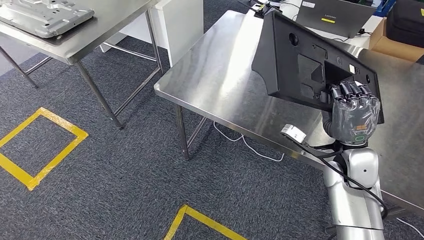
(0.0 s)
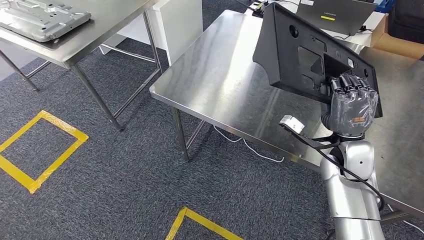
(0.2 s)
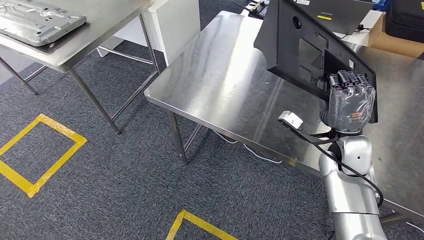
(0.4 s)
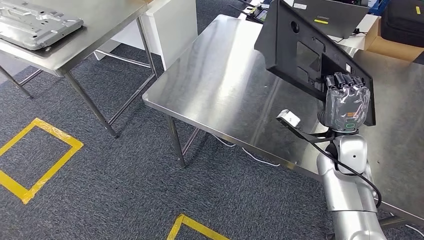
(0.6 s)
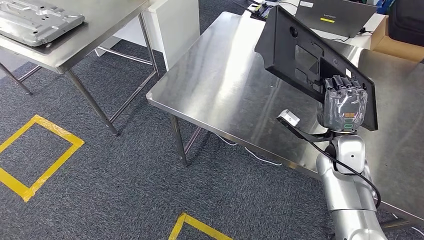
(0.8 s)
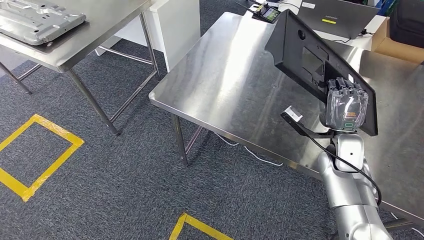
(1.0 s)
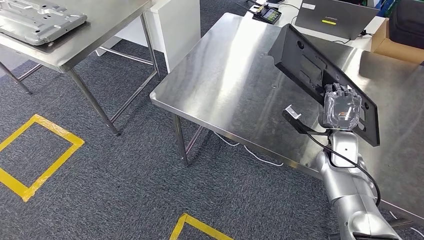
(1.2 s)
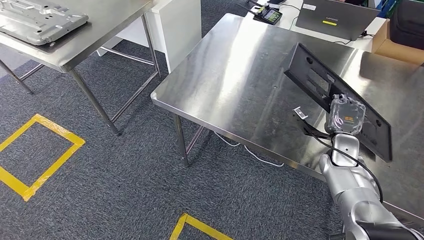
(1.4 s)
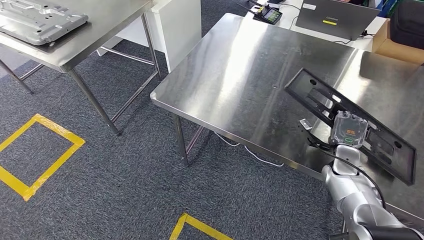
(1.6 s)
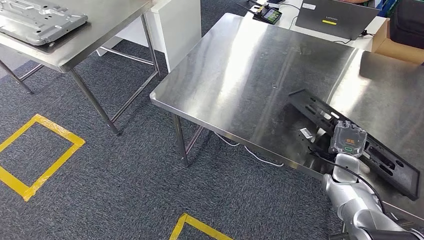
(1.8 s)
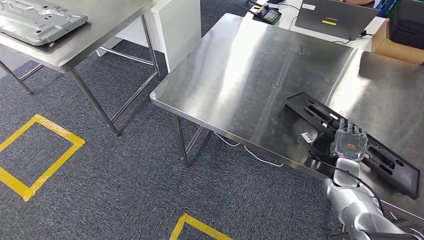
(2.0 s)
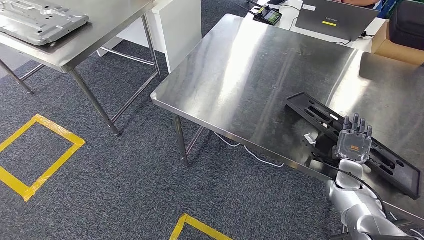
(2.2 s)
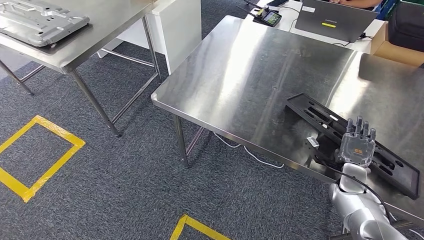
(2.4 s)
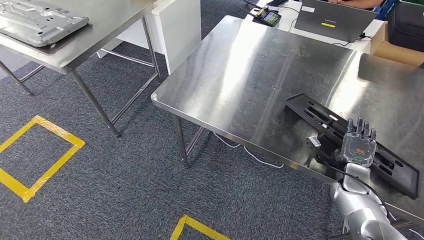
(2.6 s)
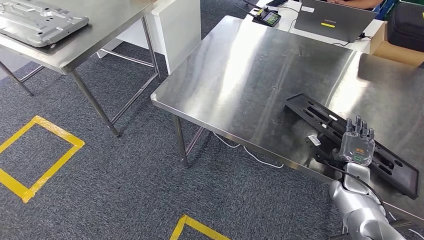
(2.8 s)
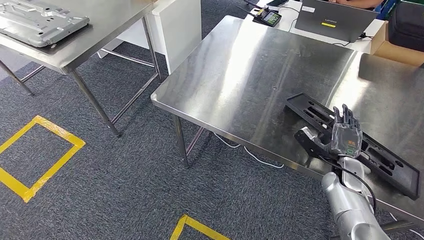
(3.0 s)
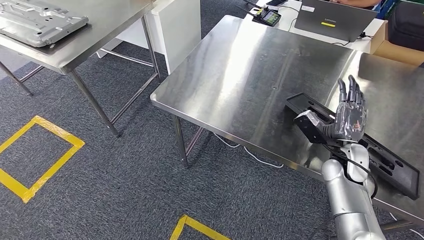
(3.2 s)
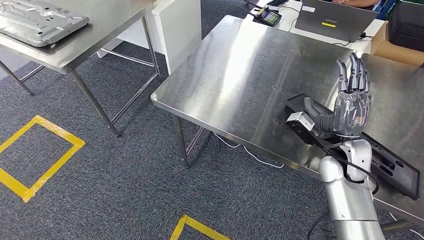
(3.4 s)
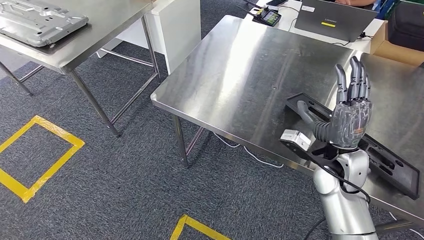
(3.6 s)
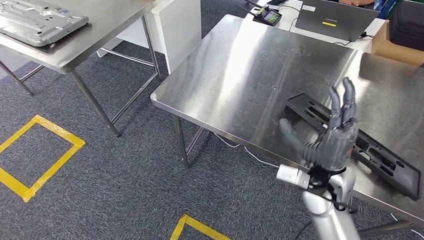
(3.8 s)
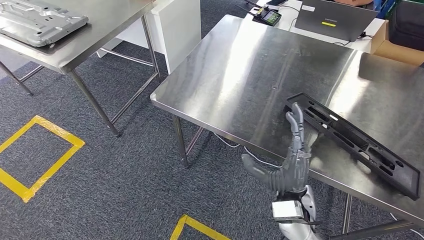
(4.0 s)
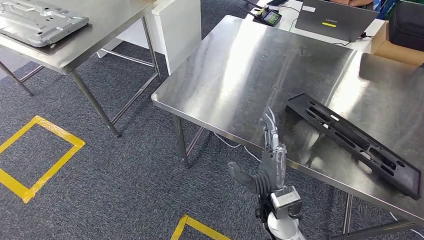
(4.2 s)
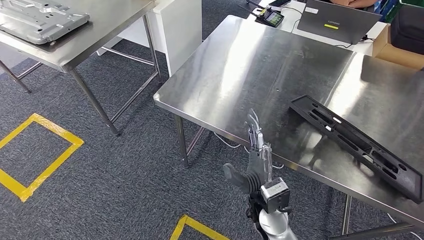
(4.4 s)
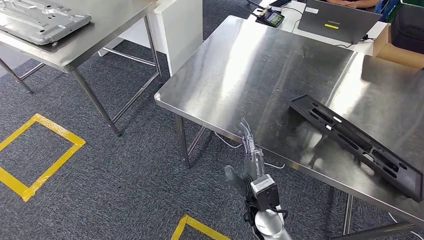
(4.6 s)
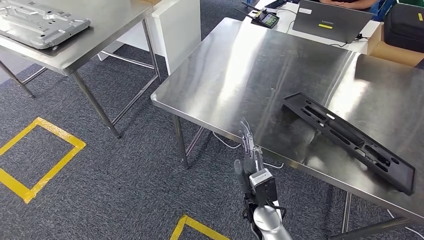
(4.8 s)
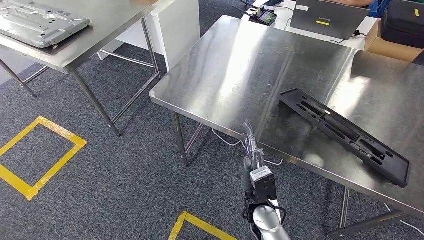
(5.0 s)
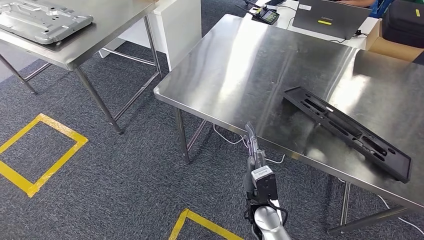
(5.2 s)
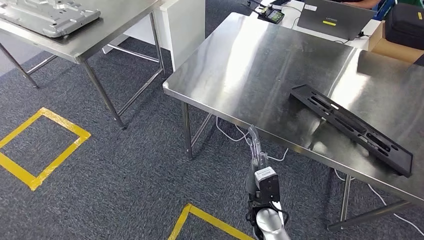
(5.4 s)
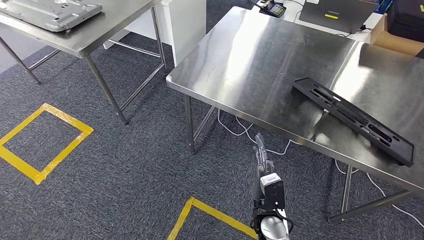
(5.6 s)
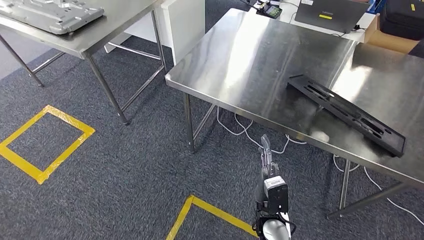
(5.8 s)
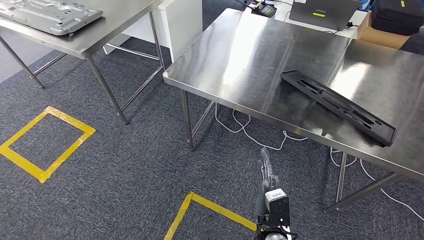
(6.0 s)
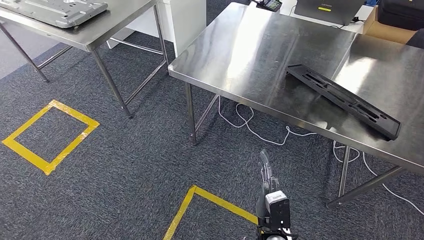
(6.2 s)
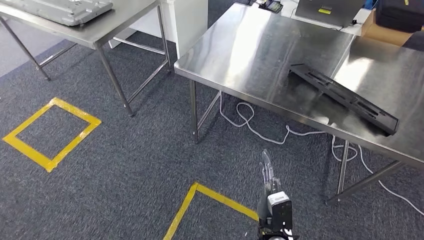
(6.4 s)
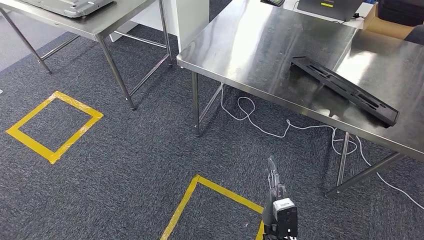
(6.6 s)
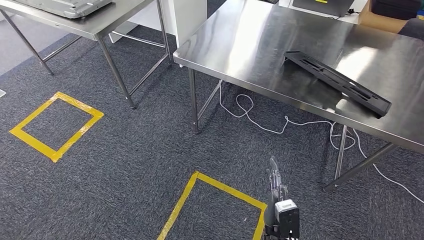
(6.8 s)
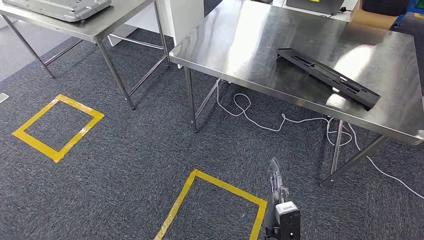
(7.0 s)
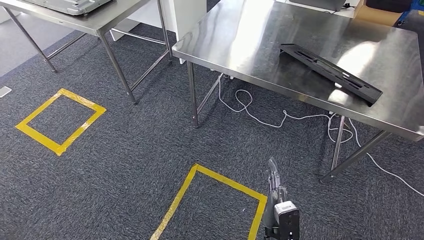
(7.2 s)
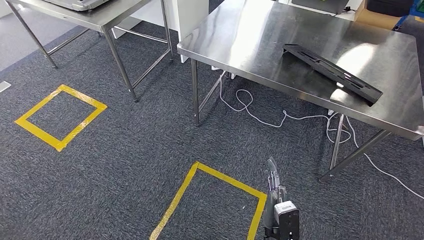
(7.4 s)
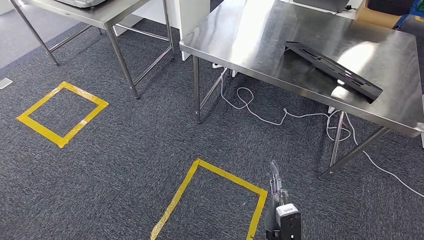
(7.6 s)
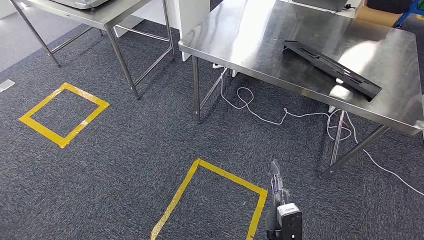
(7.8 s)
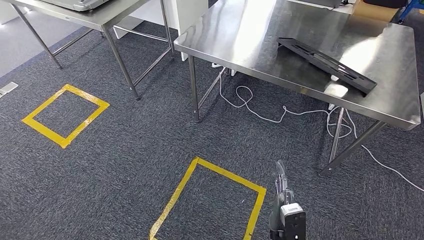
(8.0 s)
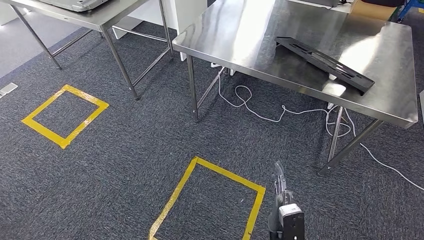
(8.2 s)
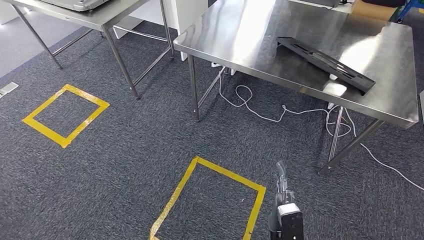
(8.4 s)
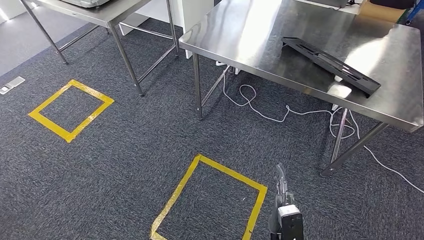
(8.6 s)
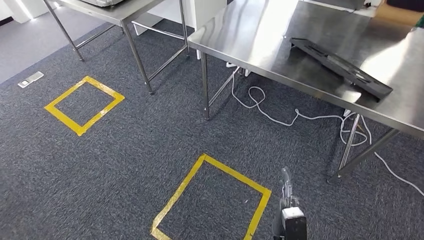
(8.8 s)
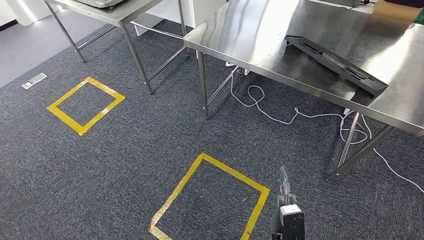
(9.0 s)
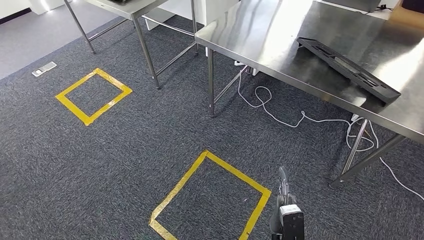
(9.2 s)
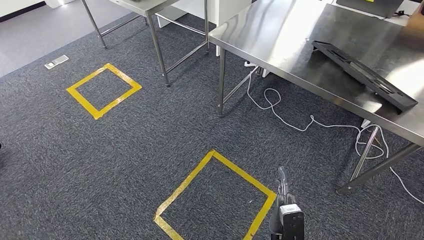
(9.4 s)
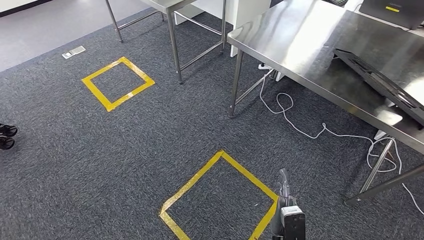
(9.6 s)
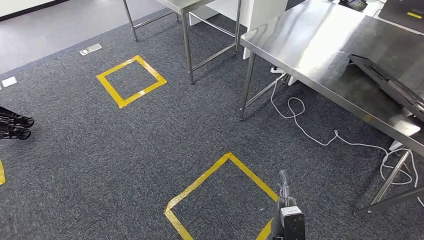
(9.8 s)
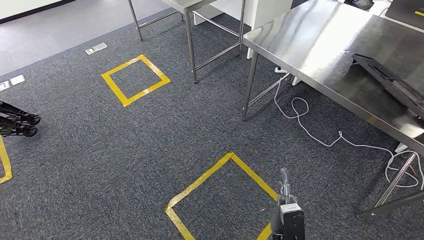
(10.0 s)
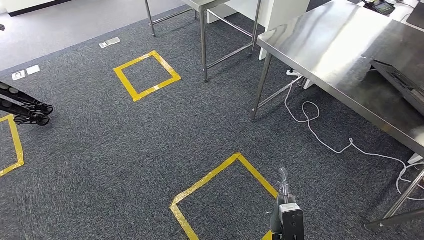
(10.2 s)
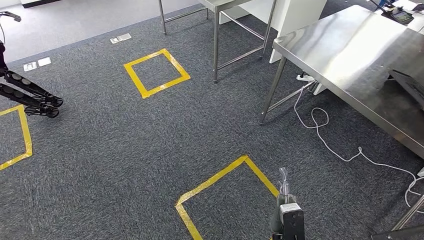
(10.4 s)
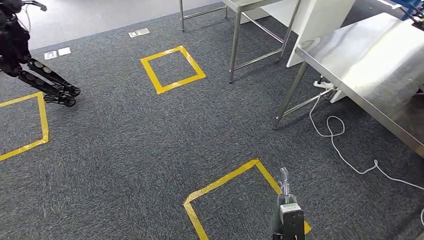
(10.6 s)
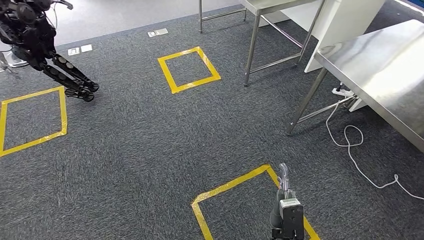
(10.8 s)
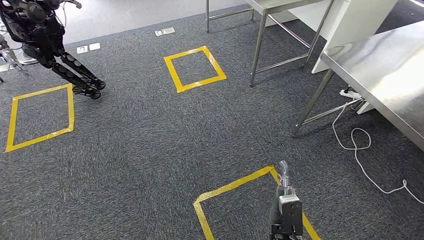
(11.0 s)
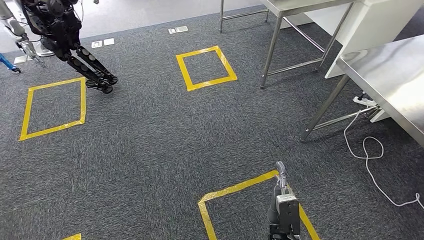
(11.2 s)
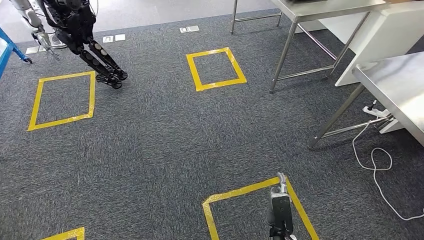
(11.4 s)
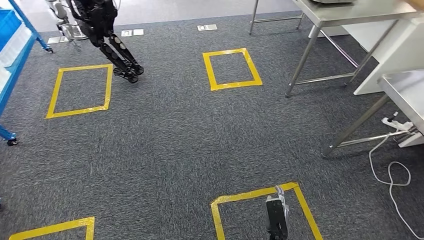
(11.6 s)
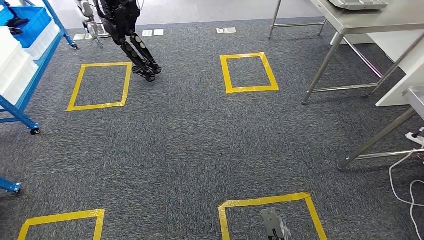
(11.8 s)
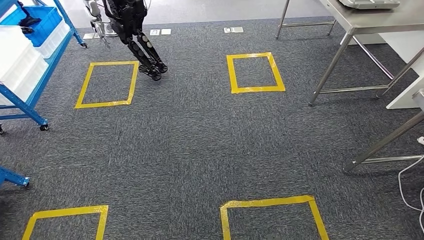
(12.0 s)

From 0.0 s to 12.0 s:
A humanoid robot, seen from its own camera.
Step, from 0.0 s to 11.6 s: Insert the large material into the corresponding slot on the workbench.
From 3.0 s to 4.4 s: The right hand travels to the left by about 25 cm.

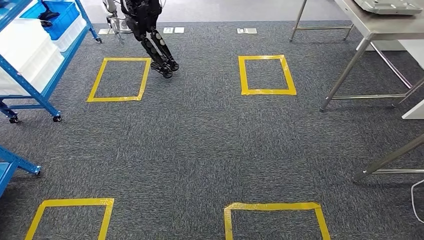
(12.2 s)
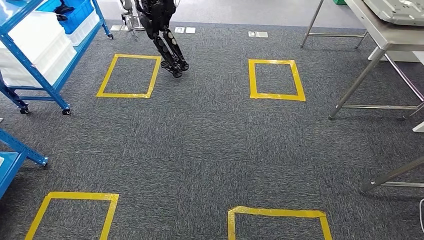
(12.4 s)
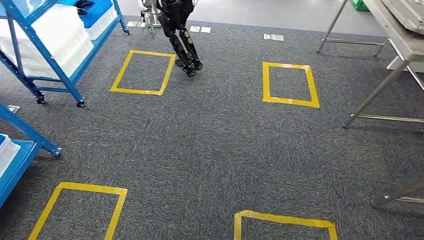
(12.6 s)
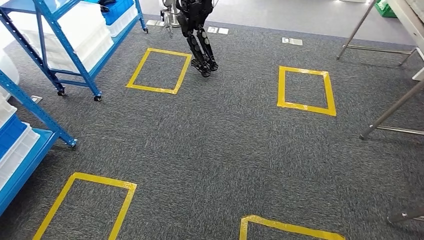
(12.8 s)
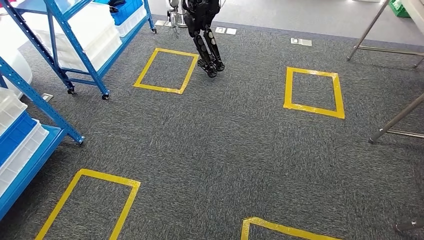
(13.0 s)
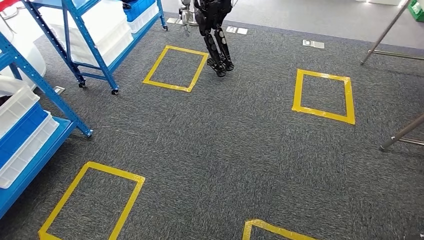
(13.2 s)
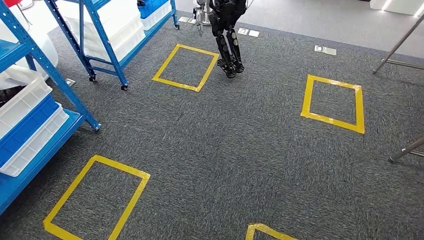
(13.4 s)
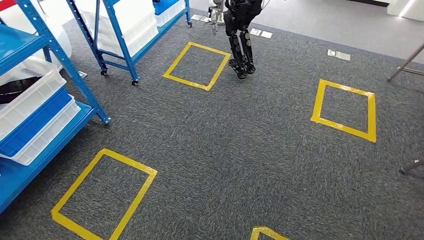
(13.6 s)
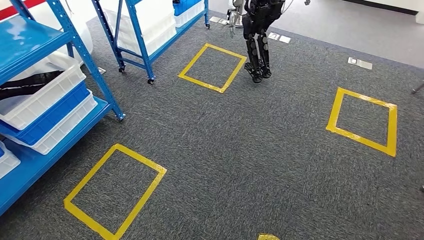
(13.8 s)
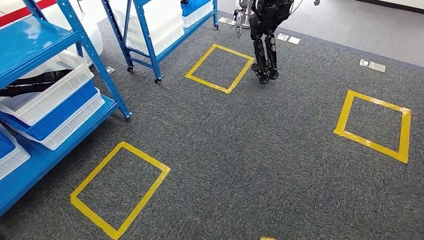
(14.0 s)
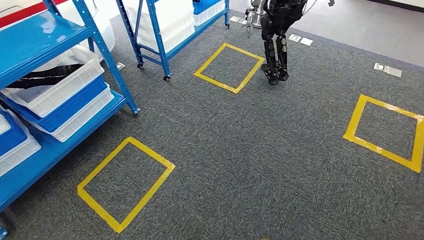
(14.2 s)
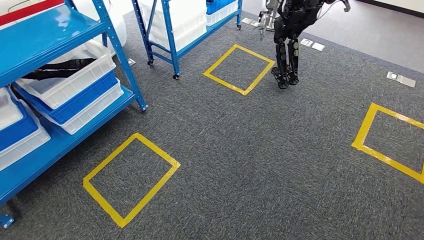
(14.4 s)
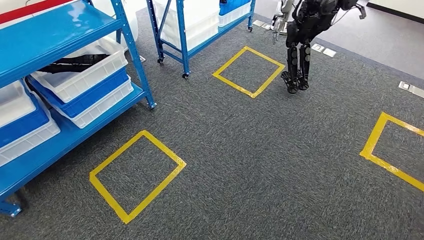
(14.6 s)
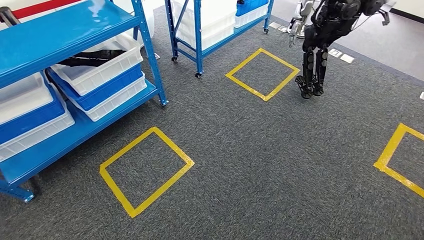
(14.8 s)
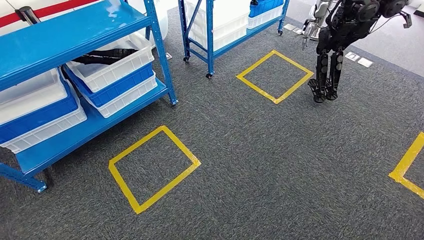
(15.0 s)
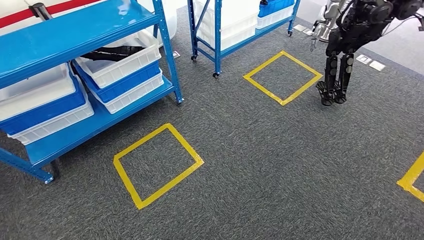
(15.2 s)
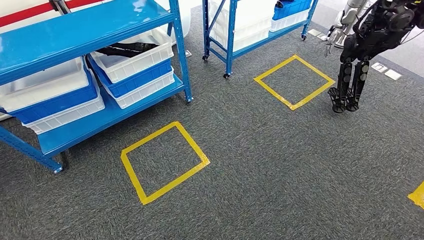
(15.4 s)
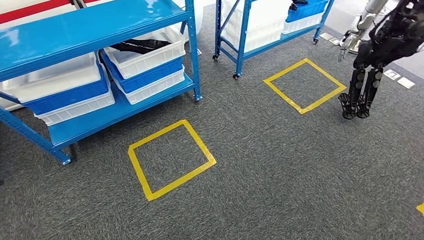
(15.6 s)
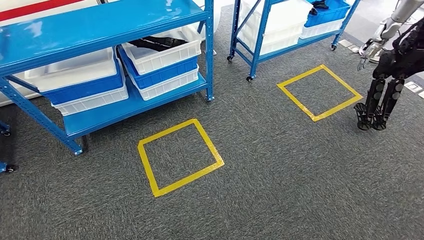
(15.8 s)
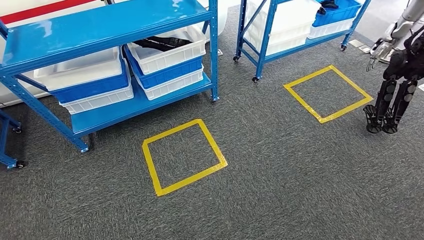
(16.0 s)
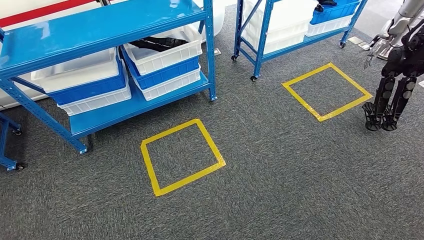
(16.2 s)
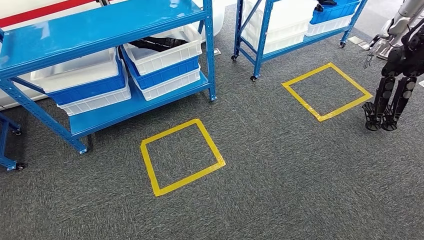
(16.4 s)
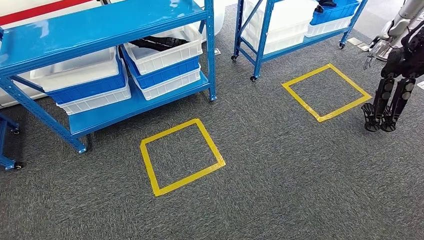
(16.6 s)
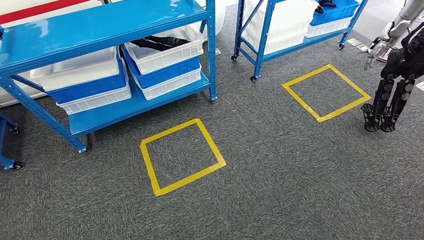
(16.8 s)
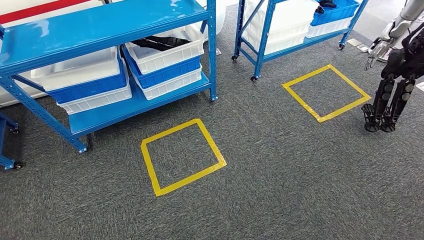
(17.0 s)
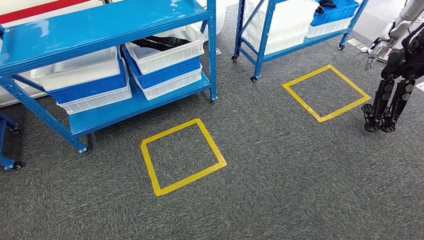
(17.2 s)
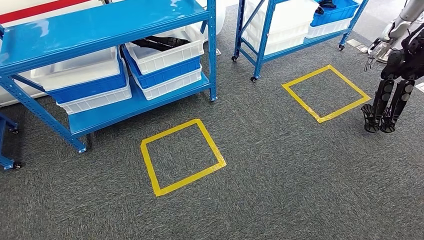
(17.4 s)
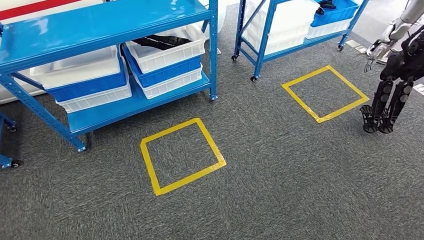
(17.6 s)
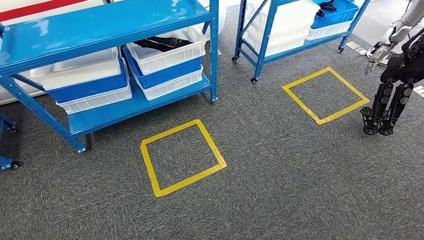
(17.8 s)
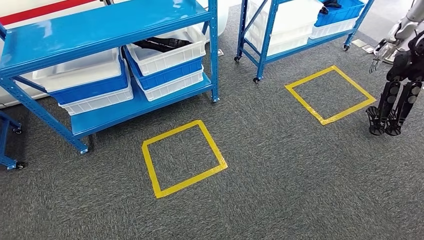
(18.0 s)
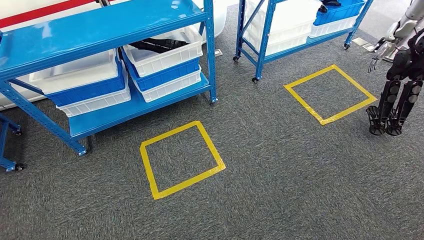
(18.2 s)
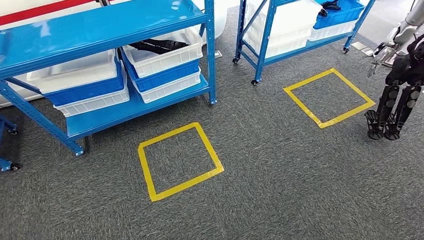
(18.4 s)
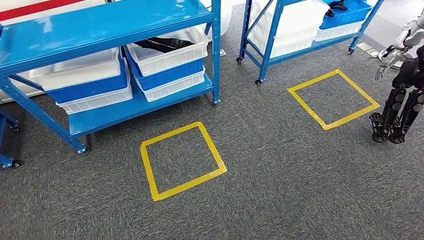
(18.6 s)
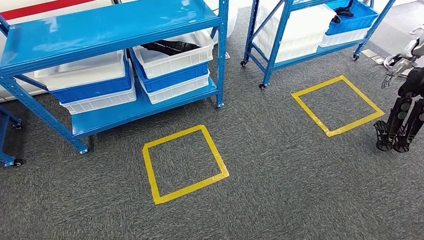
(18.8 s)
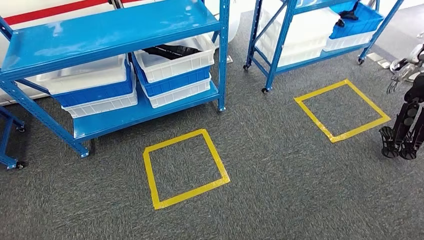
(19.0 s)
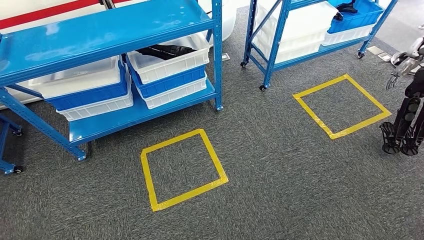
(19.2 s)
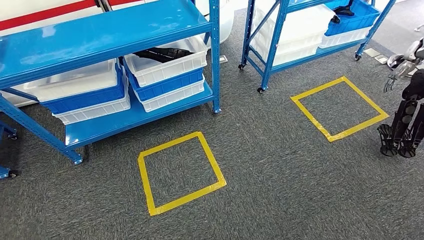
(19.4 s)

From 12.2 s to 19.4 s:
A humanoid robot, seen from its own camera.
From 16.6 s to 18.0 s: The hands make only small movements.
